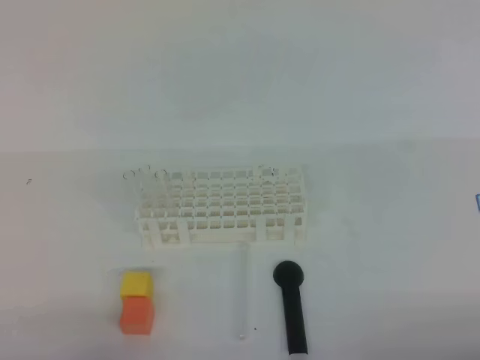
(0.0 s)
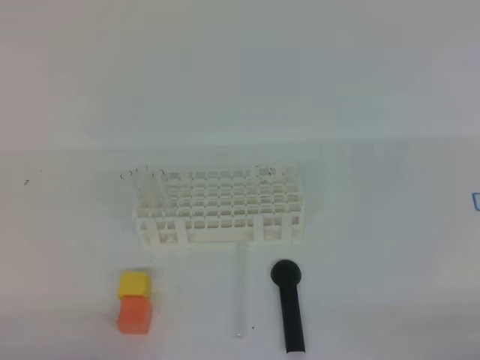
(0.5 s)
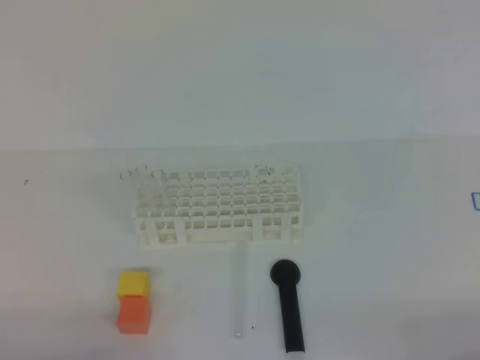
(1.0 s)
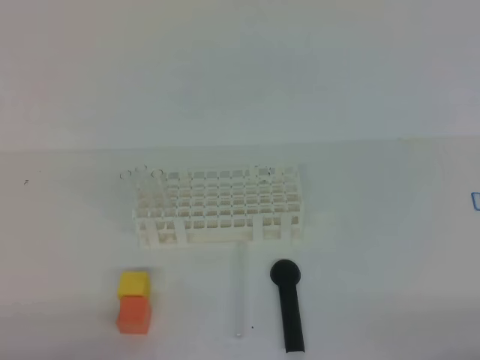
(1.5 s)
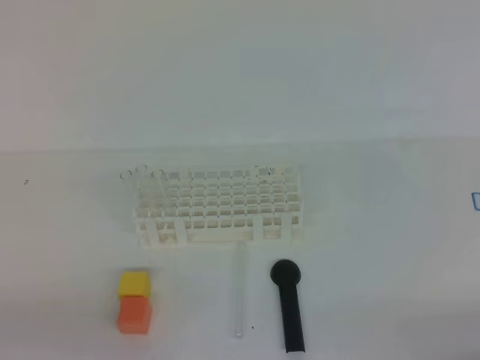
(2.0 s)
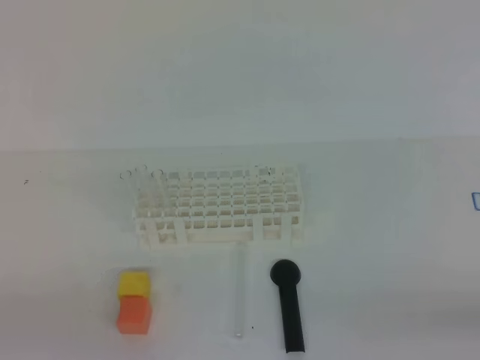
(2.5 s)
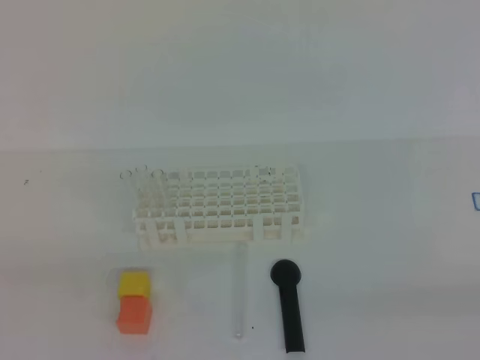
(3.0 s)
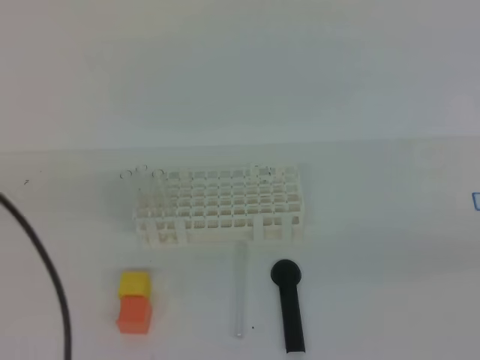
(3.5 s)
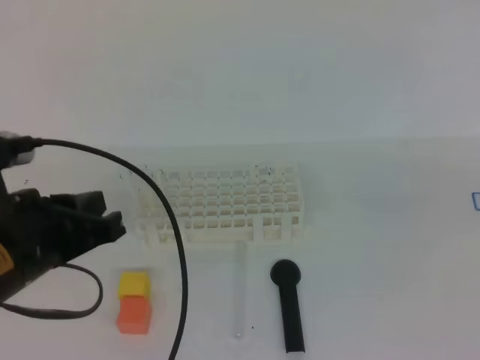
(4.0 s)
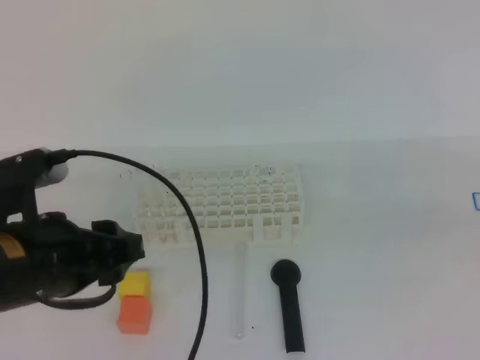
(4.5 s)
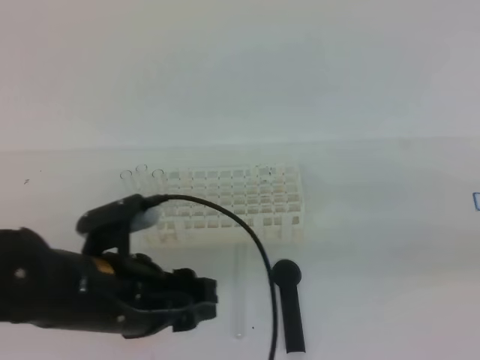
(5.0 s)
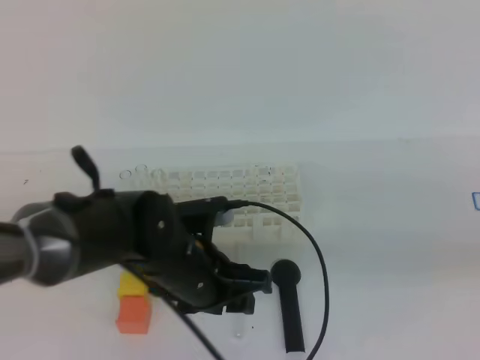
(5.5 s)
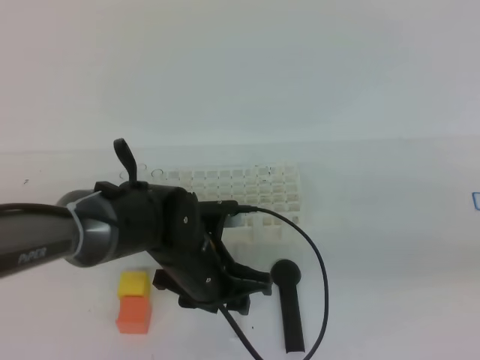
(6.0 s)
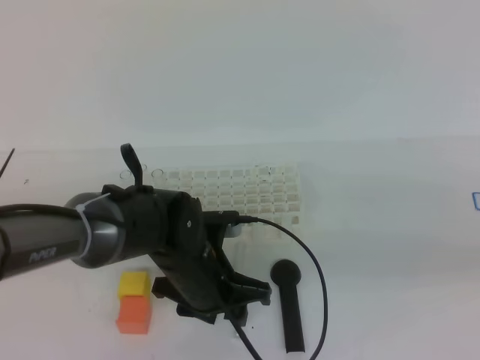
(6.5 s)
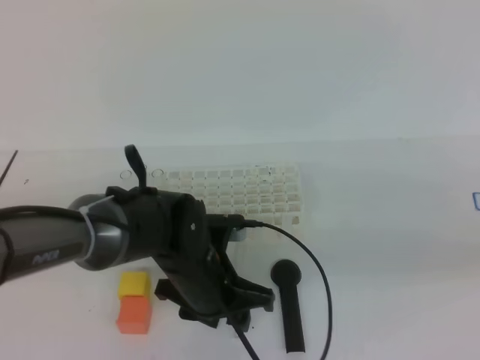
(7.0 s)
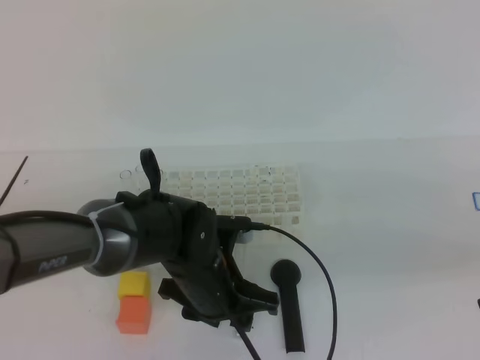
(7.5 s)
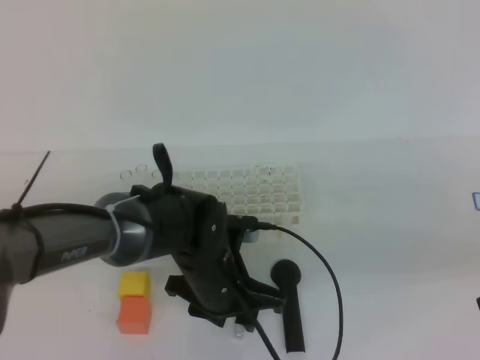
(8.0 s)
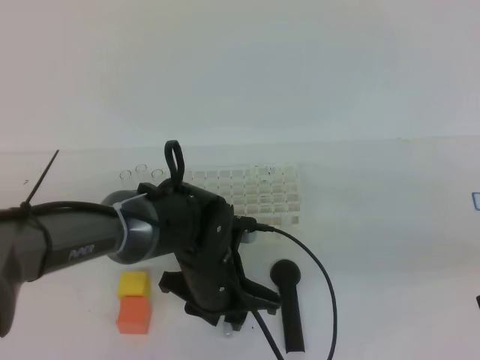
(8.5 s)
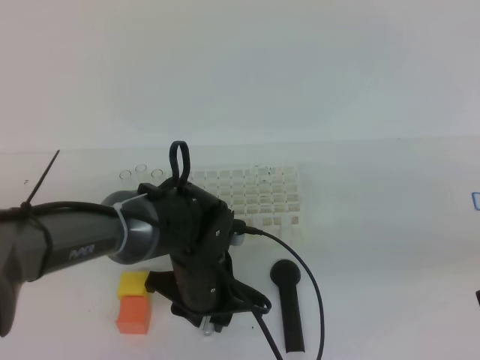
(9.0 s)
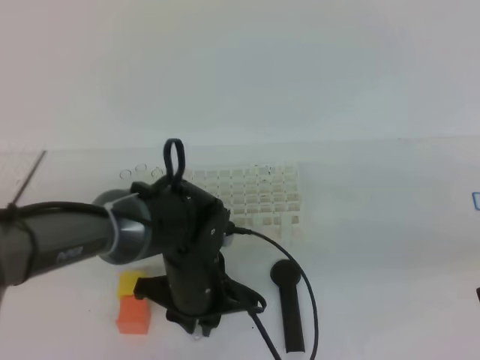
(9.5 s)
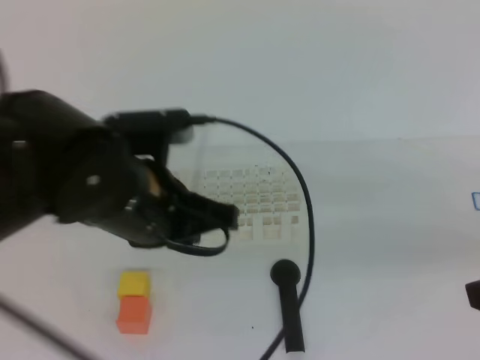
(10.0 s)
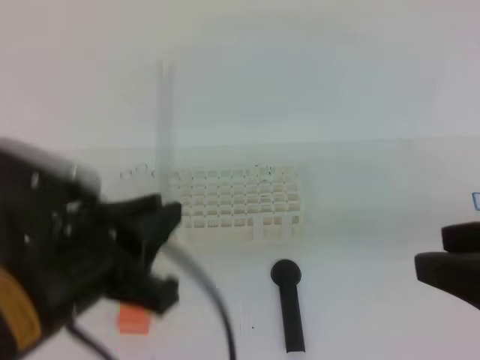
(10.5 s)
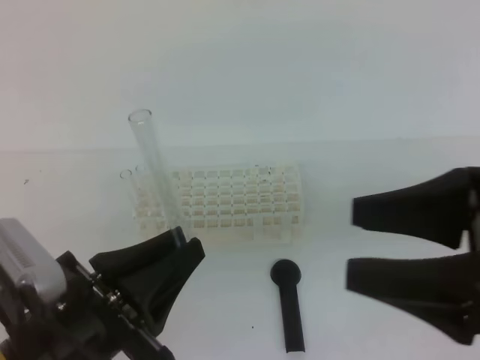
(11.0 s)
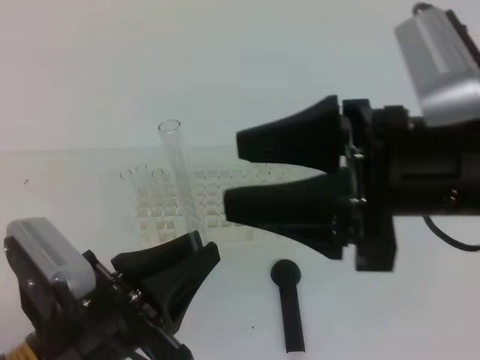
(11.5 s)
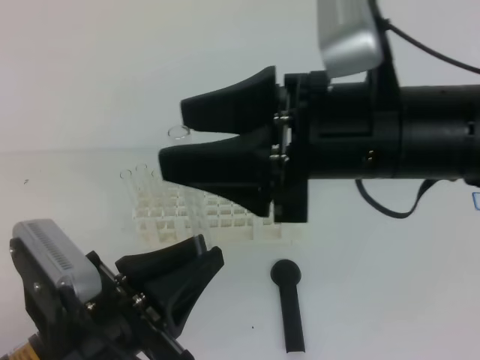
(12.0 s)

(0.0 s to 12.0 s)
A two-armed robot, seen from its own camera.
2.0 s - 4.0 s: The left gripper goes approximately 20 cm forward, upward and to the right. The right gripper is displaced upward and forward by approximately 15 cm.
4.0 s - 6.0 s: The left gripper travels to the right, downward and forward by about 20 cm, and opens its fingers; the right gripper opens up.
6.0 s - 8.0 s: The grippers stay close to where they were, moving slightly.
8.0 s - 10.0 s: The left gripper is displaced upward by approximately 15 cm, and closes up.
10.0 s - 12.0 s: The left gripper shifts some 15 cm backward, to the left and downward. Meanwhile the right gripper shifts approximately 20 cm to the left and forward.

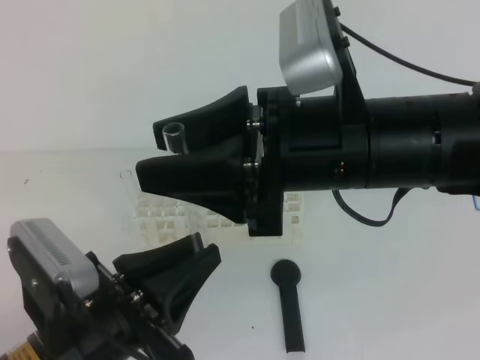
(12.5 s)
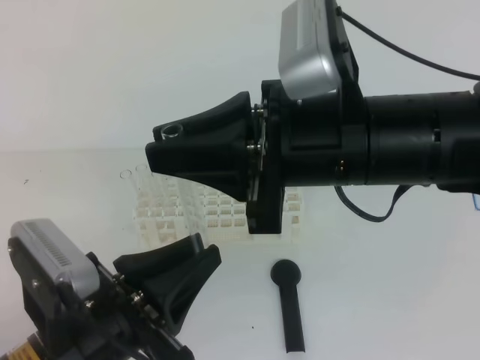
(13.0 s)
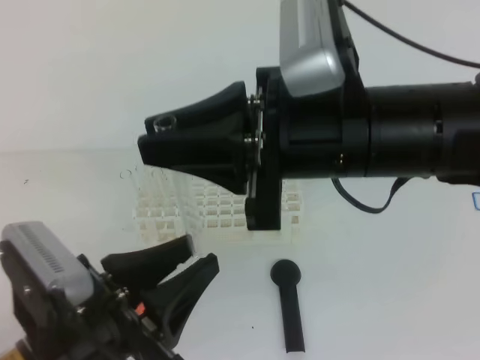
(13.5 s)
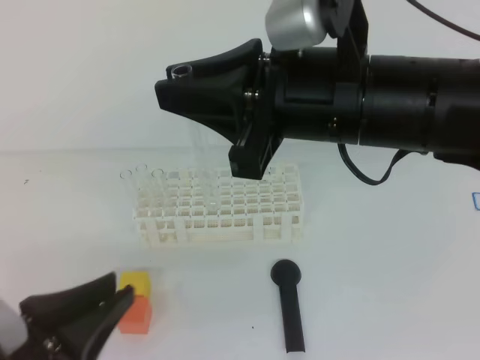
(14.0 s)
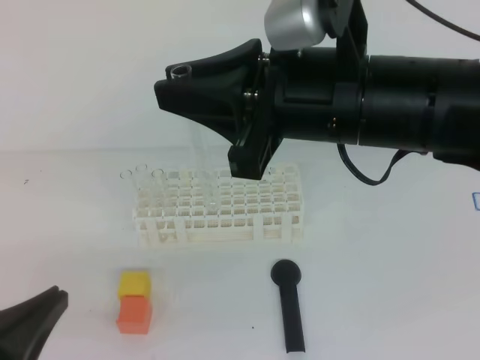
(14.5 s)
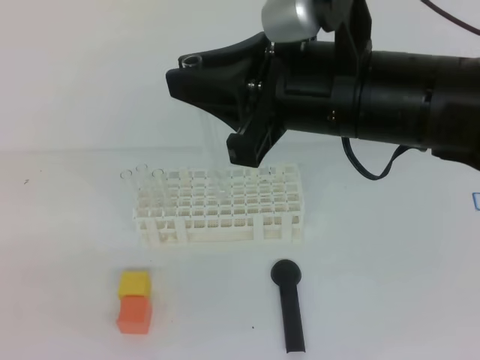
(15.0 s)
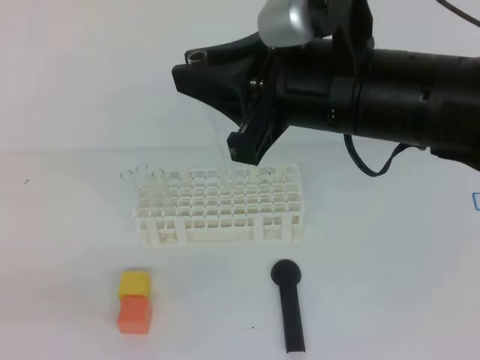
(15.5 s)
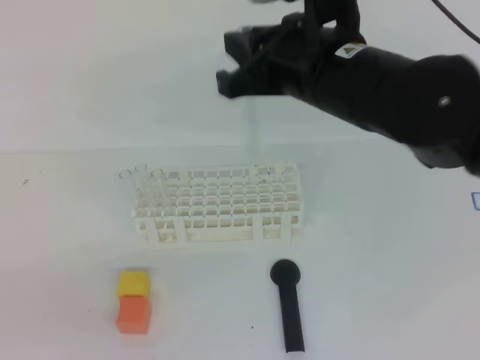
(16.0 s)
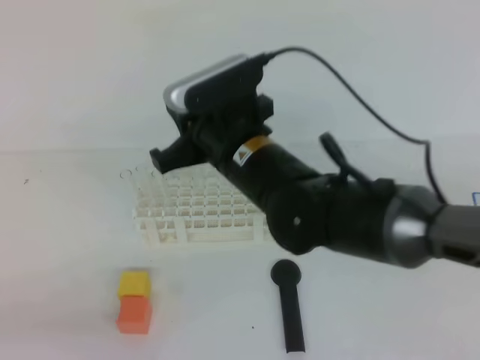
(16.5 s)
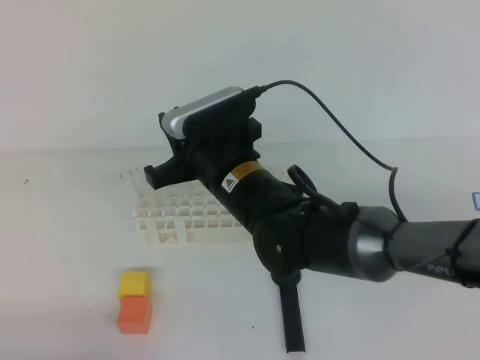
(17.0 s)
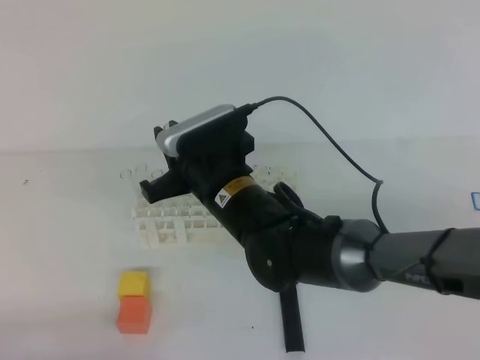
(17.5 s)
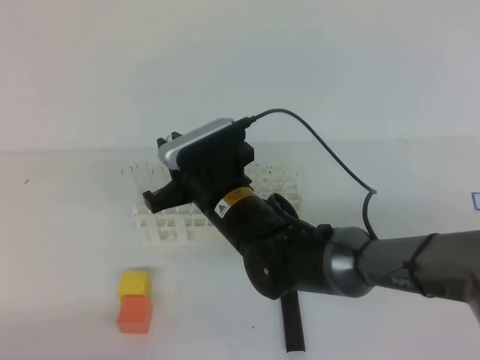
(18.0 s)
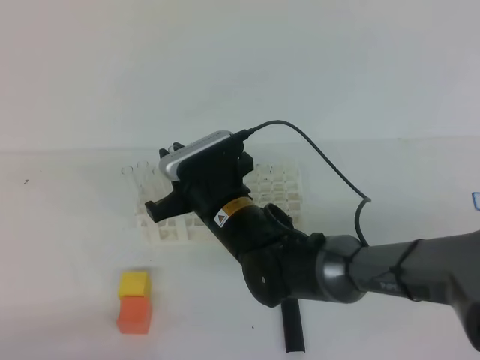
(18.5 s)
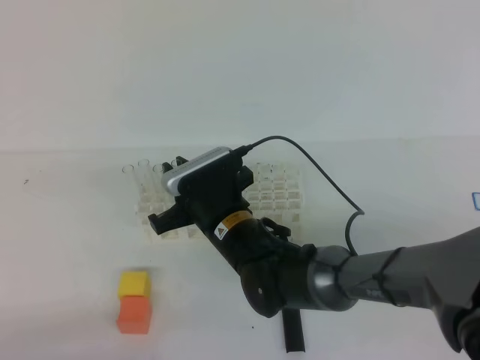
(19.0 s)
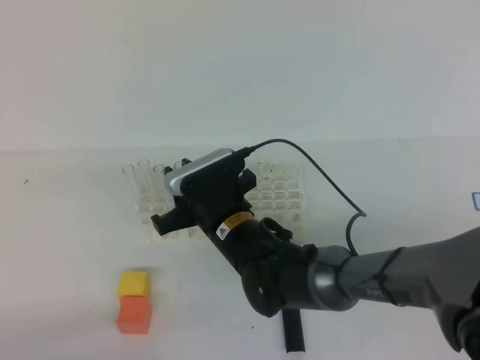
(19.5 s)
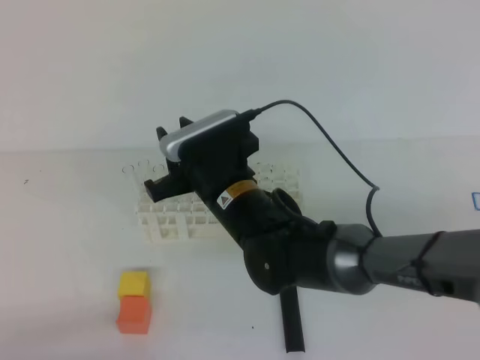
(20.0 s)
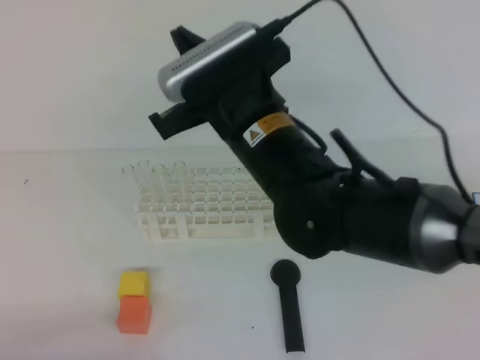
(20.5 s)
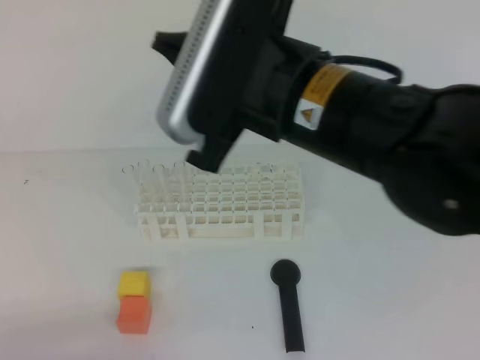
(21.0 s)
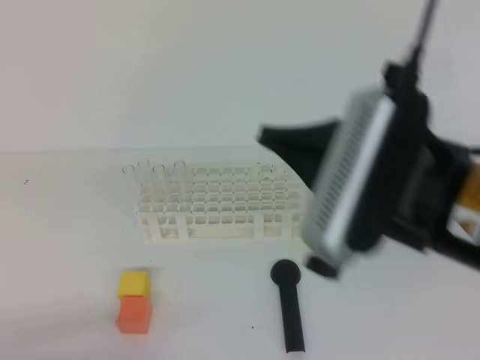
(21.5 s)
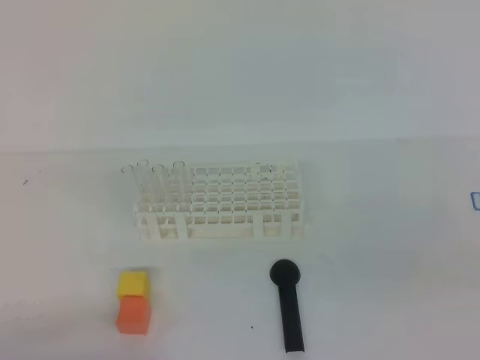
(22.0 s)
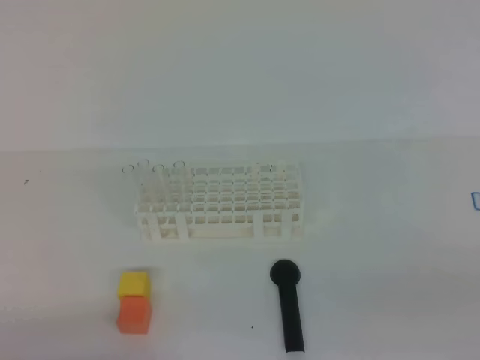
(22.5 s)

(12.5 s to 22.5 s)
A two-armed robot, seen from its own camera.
12.5 s - 14.5 s: The left gripper travels to the left by about 10 cm, and opens and closes again; the right gripper closes.
14.5 s - 16.5 s: The left gripper goes about 5 cm to the left; the right gripper heads downward, to the left and forward, covering approximately 15 cm.
16.5 s - 18.5 s: The right gripper moves downward, some 10 cm. The left gripper is displaced downward by about 5 cm.
18.5 s - 20.5 s: The right gripper moves upward, roughly 15 cm.
20.5 s - 22.5 s: The right gripper shifts approximately 40 cm to the right and backward.

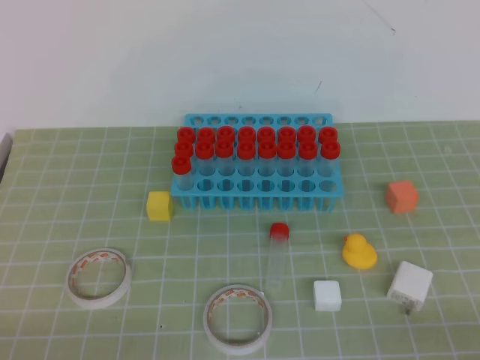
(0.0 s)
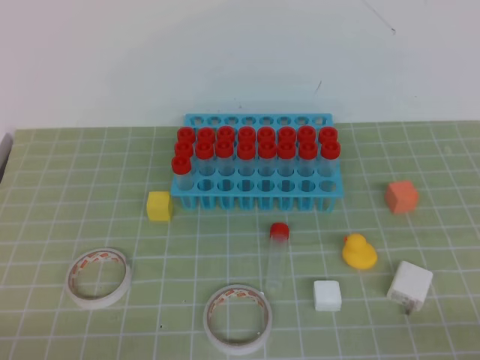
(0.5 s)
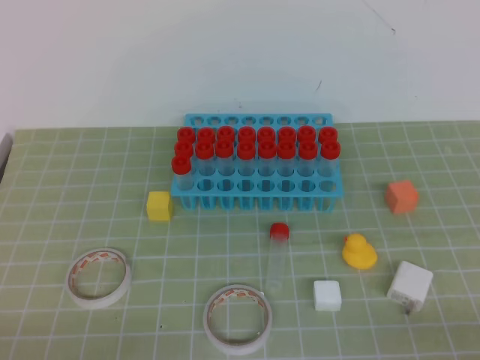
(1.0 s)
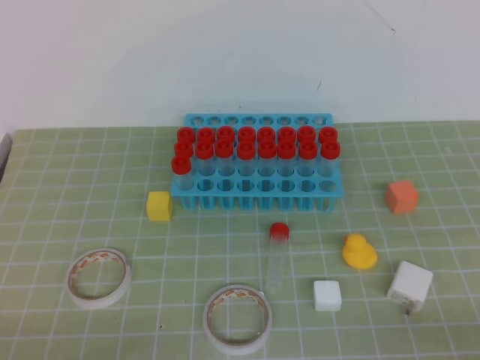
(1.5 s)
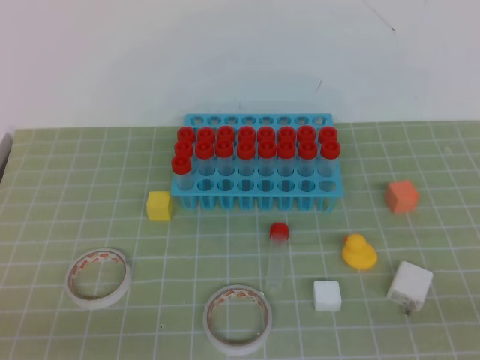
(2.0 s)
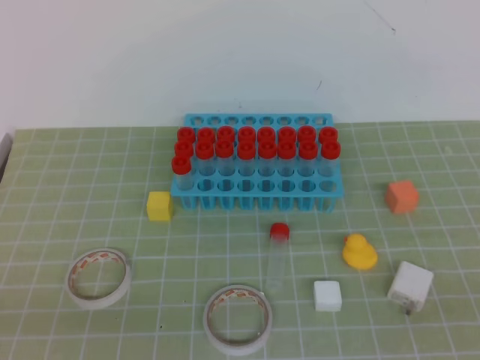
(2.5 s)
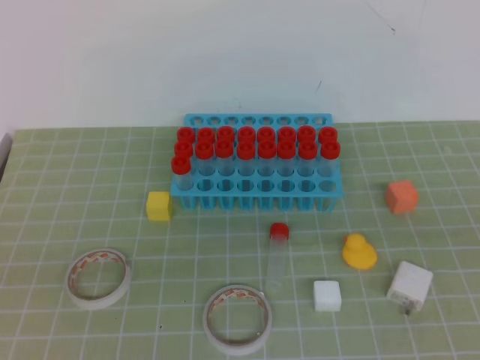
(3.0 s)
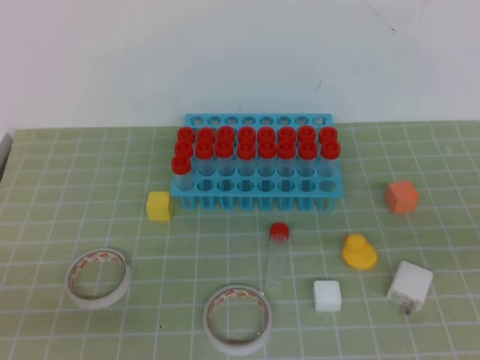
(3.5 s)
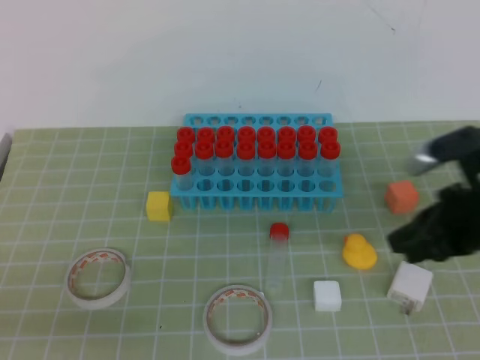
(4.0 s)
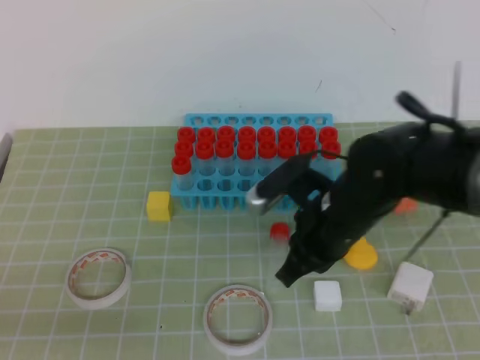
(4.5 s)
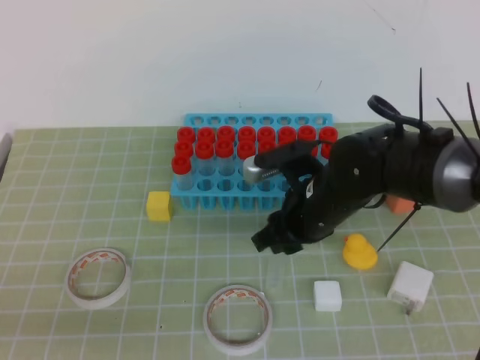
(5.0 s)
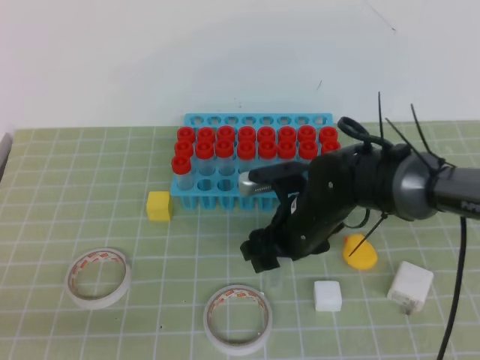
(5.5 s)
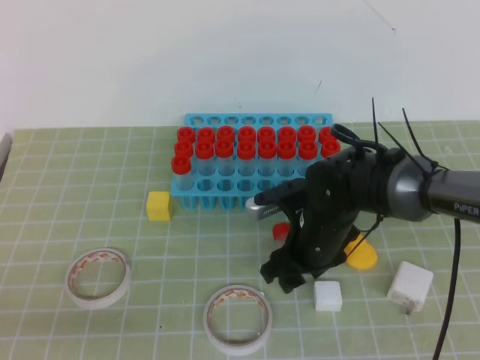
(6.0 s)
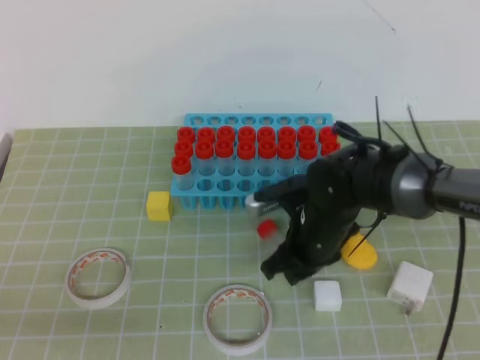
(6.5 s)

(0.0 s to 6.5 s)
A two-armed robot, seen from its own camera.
2.0 s - 4.5 s: The right gripper moves forward and to the left, approximately 35 cm.
4.5 s - 6.5 s: The right gripper is displaced downward by approximately 5 cm, and opens up.
